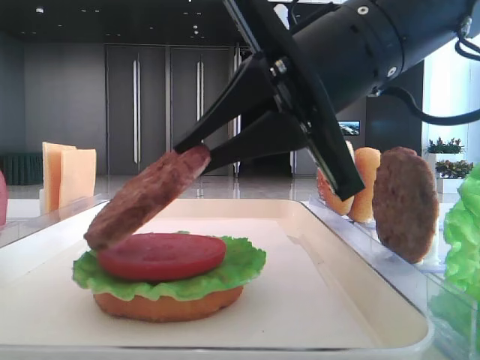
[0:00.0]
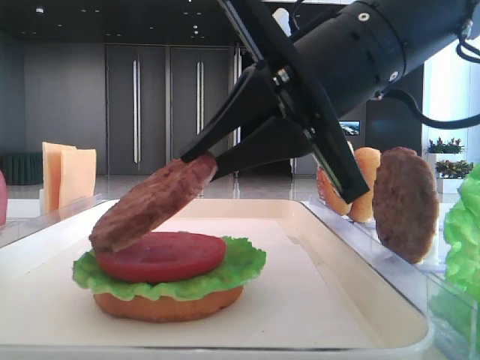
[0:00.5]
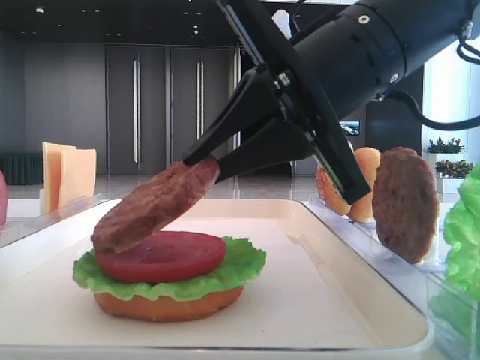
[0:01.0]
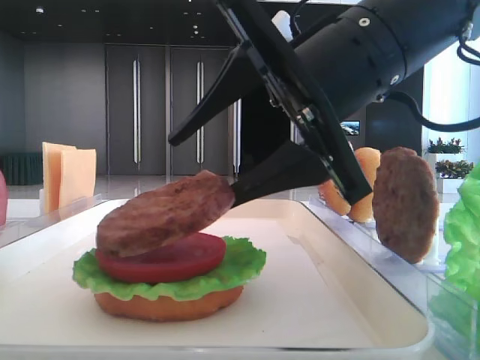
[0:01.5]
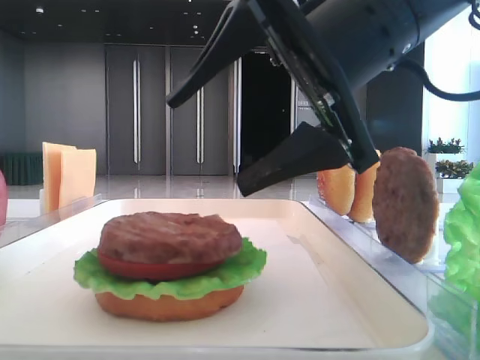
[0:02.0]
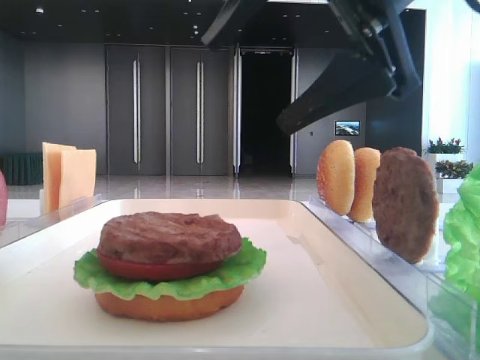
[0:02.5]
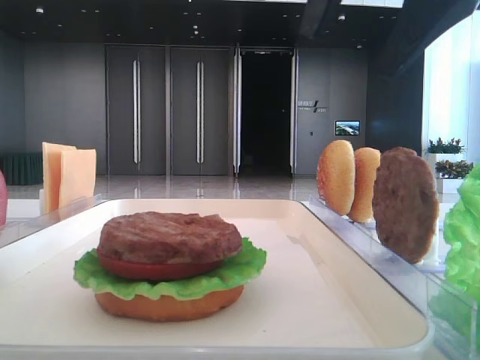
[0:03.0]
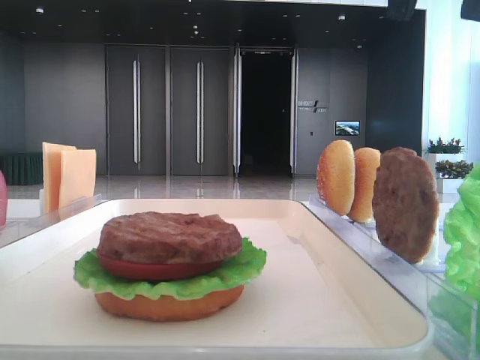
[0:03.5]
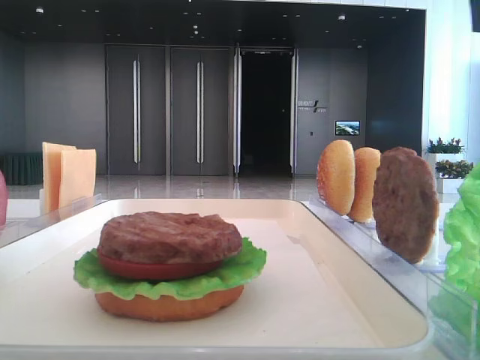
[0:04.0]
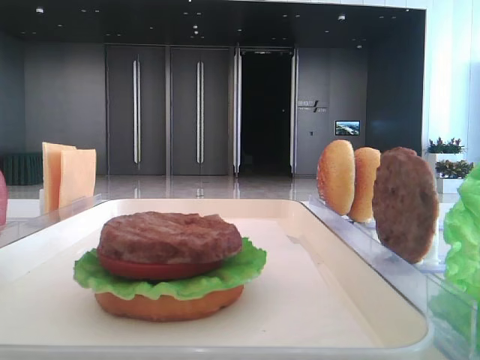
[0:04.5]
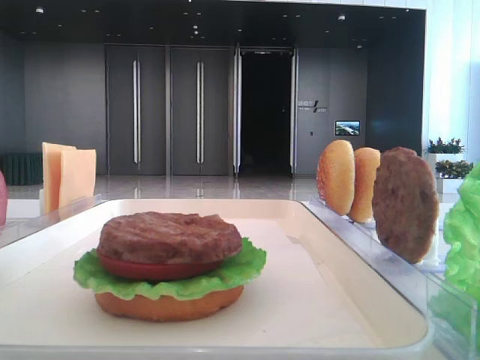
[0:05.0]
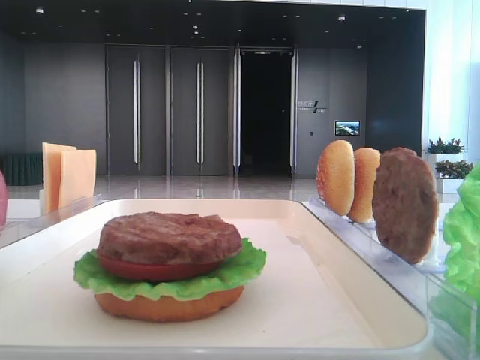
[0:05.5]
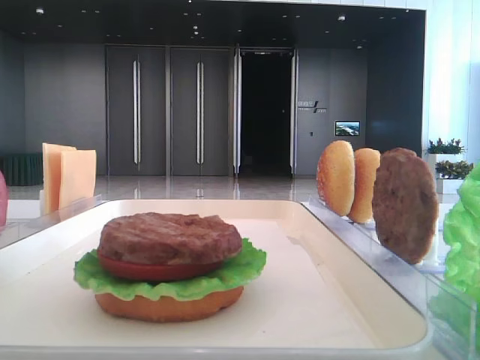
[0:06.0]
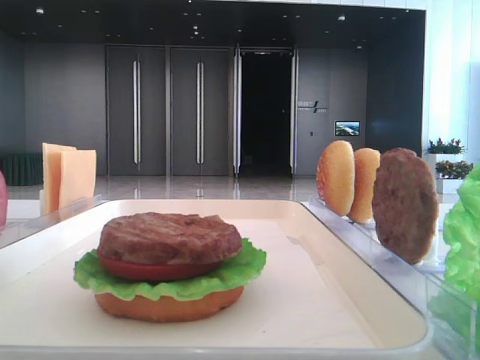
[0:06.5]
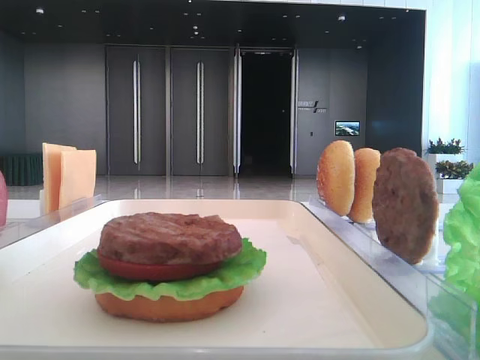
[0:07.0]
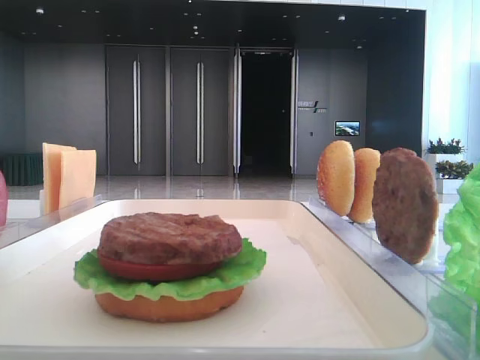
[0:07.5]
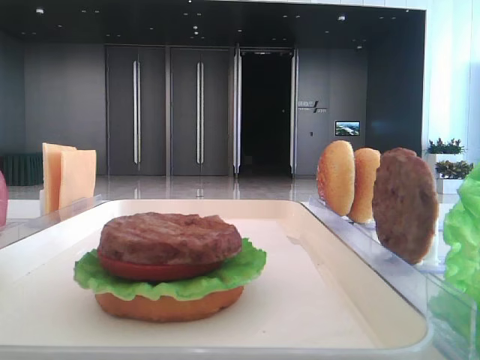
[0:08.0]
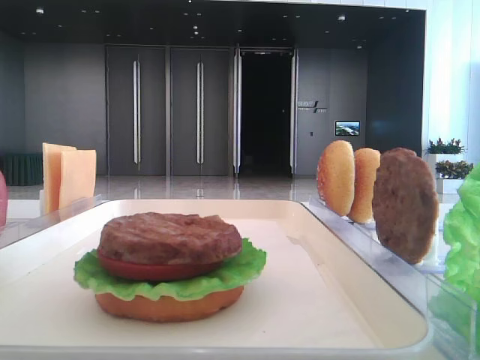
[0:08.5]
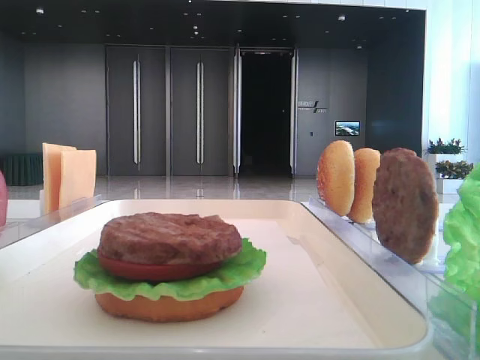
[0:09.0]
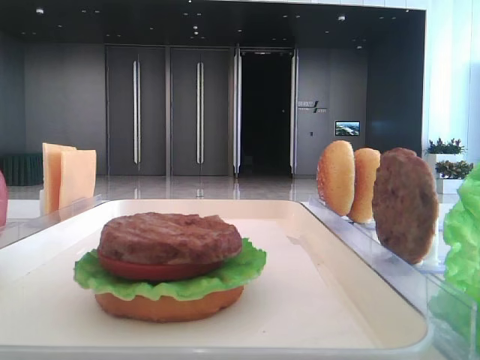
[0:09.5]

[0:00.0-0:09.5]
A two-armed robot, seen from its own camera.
Step, 0:00.0 to 0:02.0: Place the patty on the tomato slice with the right hand.
0:00.0 to 0:02.0: The right gripper opens.
0:02.0 to 0:04.0: The right gripper is displaced upward and to the right by about 20 cm.
0:07.5 to 0:09.5: Neither gripper changes place.

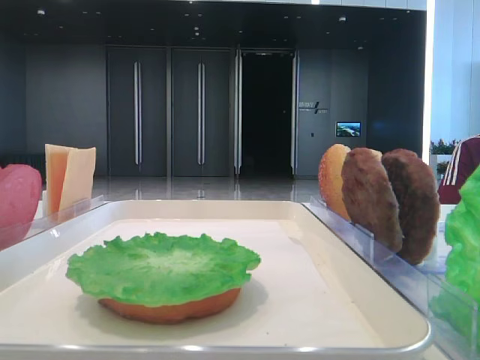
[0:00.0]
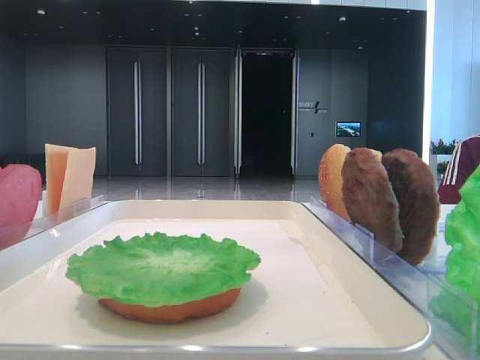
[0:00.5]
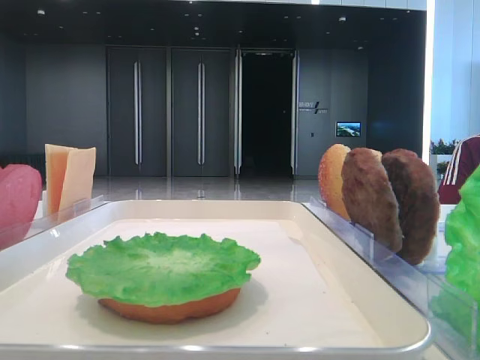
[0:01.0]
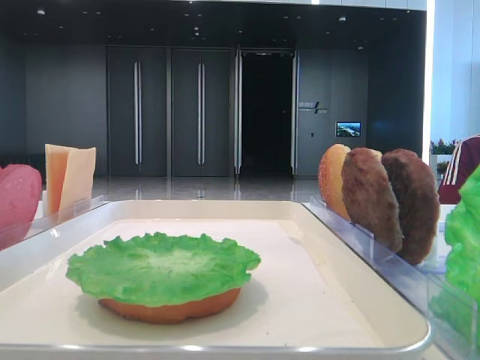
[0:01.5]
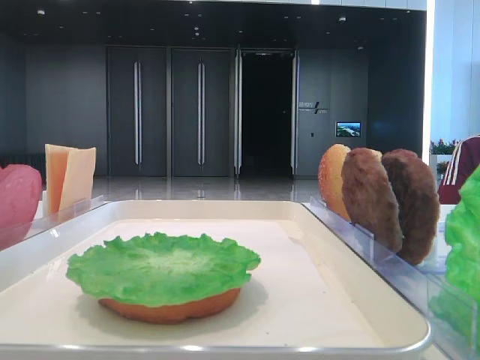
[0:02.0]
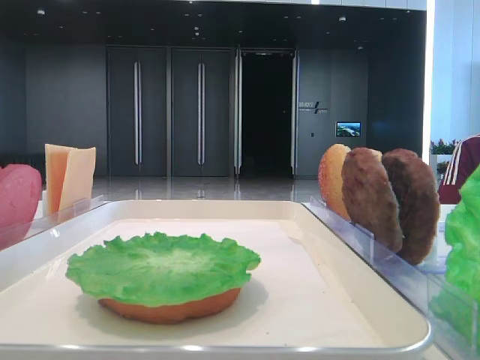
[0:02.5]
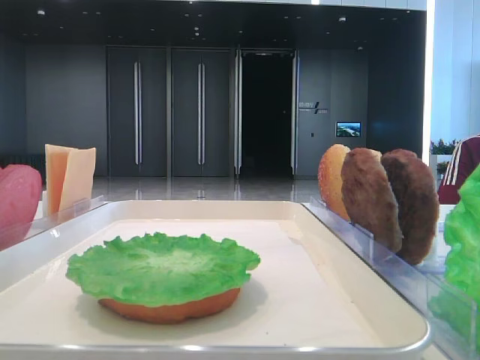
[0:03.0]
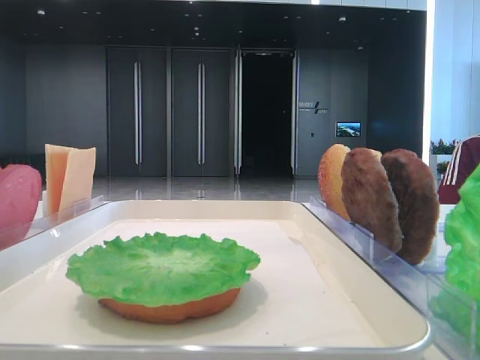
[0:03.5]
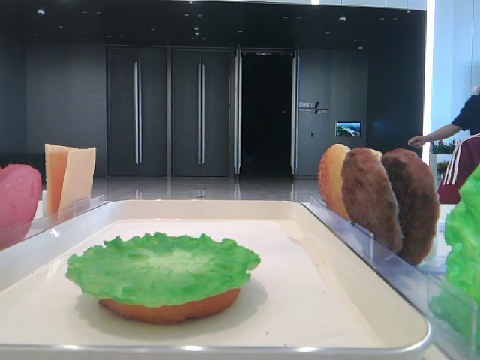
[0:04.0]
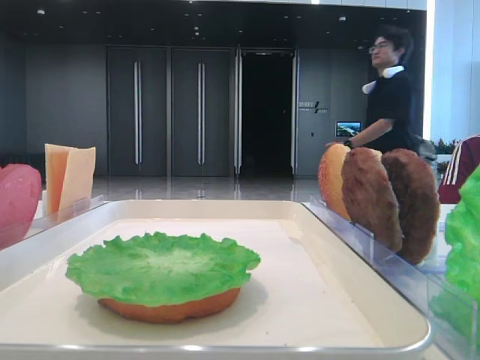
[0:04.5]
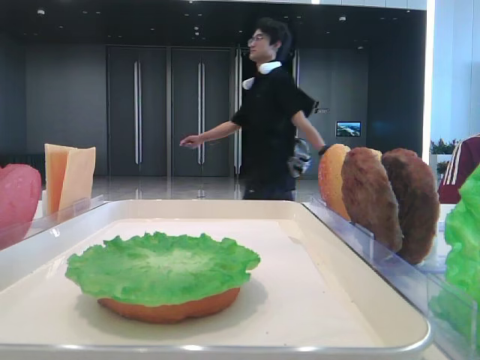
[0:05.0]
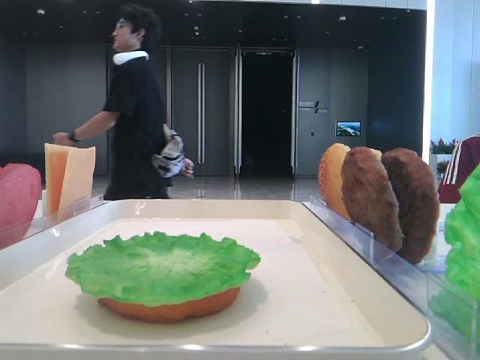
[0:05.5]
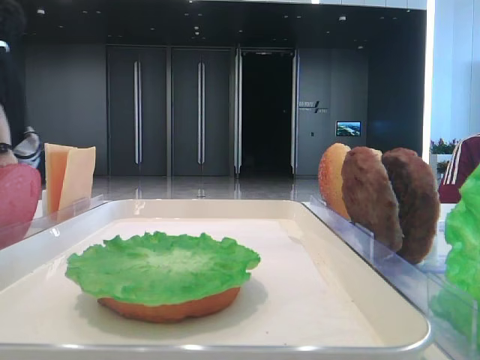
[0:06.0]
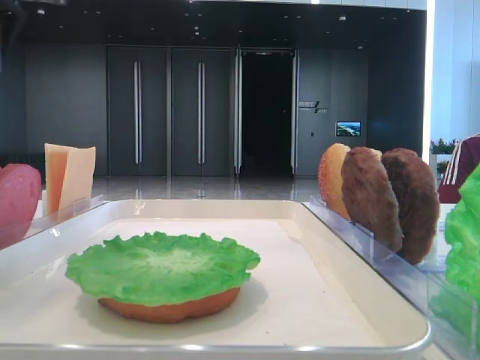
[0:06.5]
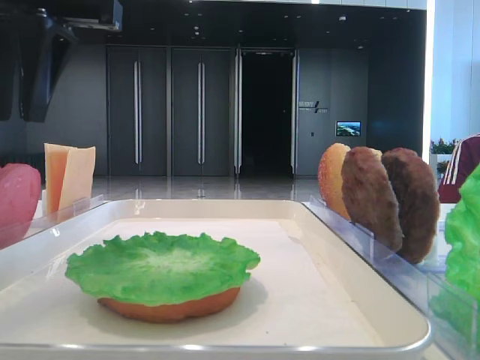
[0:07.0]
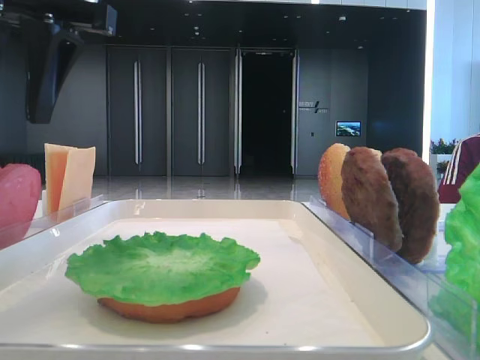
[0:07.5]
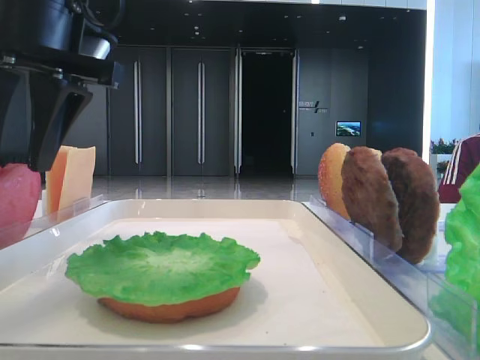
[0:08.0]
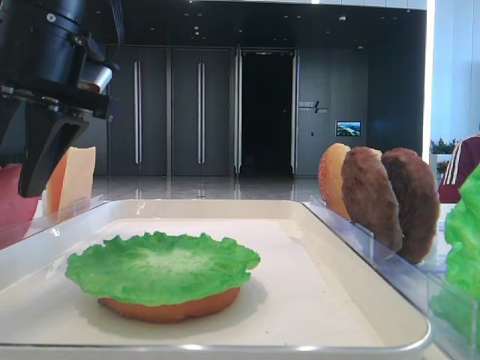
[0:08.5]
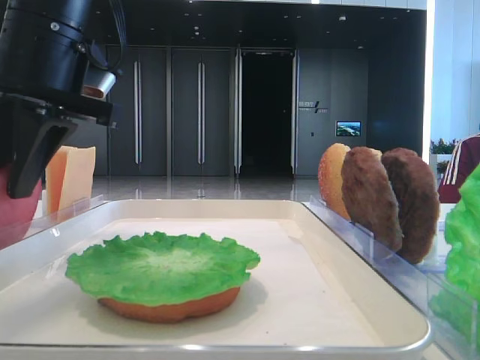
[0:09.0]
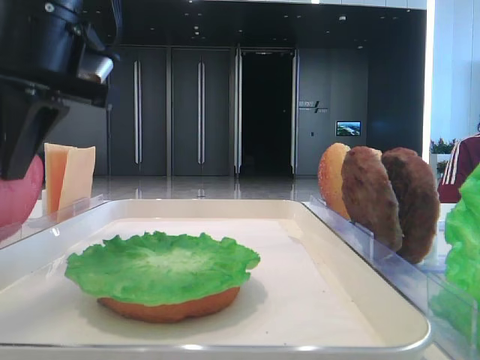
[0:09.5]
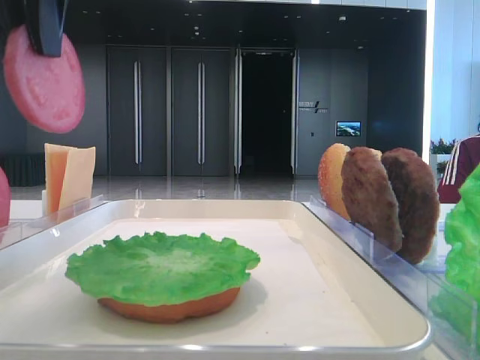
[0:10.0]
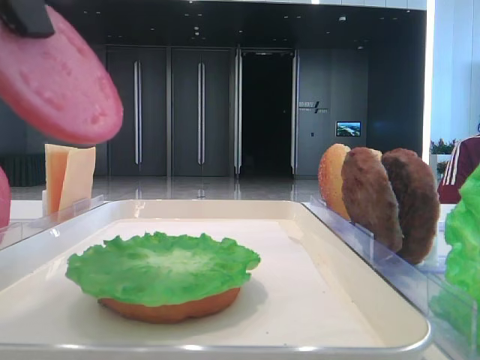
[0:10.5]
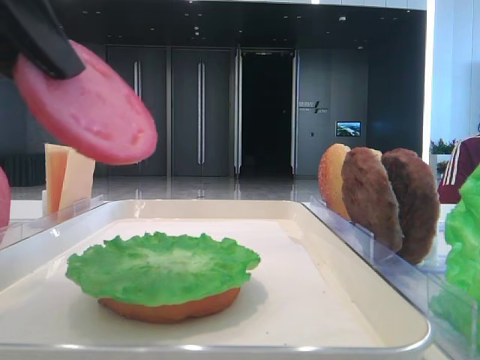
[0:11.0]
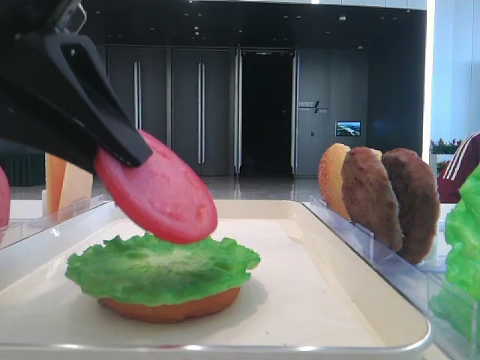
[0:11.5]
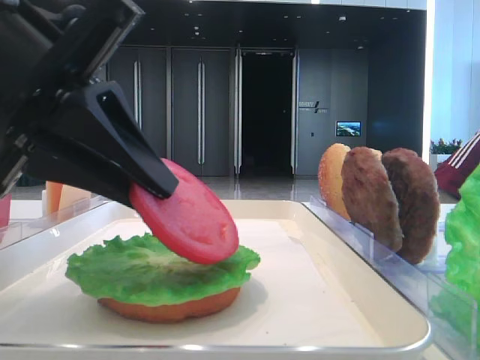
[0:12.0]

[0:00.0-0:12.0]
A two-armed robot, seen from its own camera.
Step, 0:00.0 to 0:09.0: Pick up the tomato slice with the left hand.
0:02.0 to 0:04.0: Both grippers stay about where they are.
0:04.0 to 0:06.0: The left gripper travels forward by some 30 cm.
0:06.0 to 0:08.0: The left gripper goes approximately 15 cm to the right and downward.
0:08.0 to 0:10.0: The left gripper is displaced upward by approximately 5 cm, and closes up.
0:10.0 to 0:12.0: The left gripper shifts some 15 cm downward.

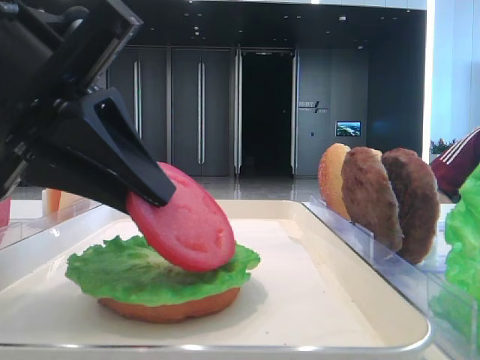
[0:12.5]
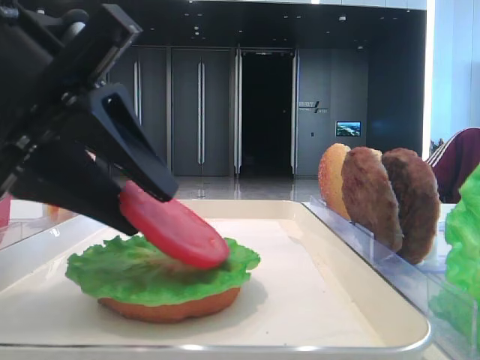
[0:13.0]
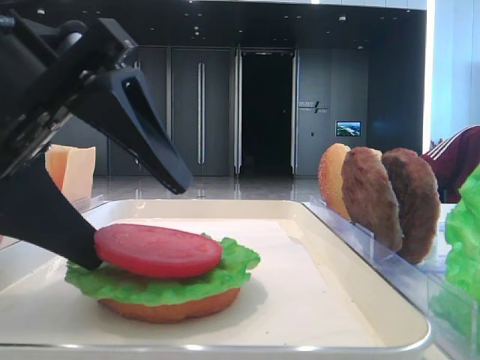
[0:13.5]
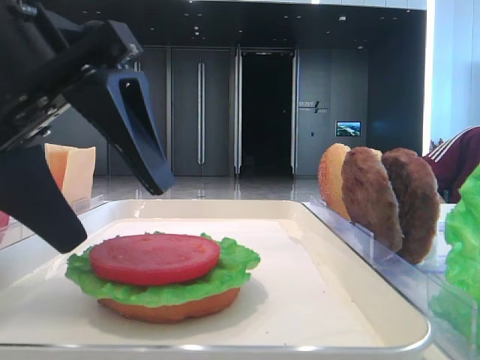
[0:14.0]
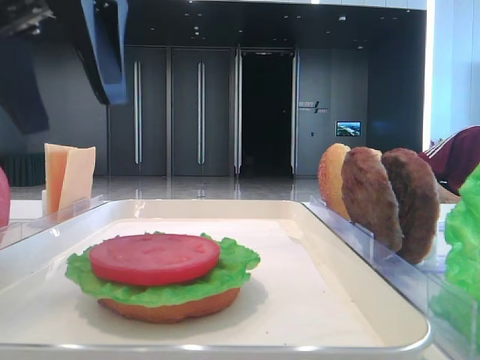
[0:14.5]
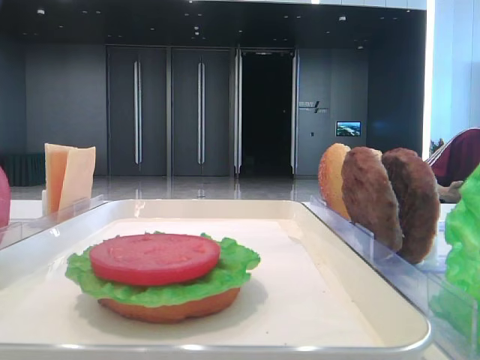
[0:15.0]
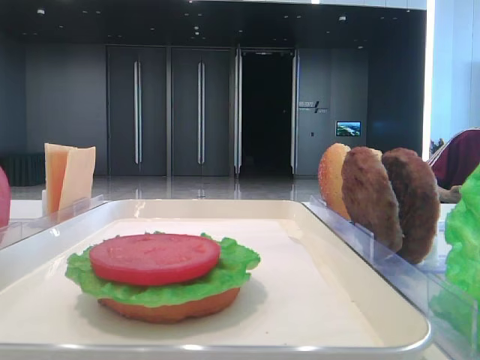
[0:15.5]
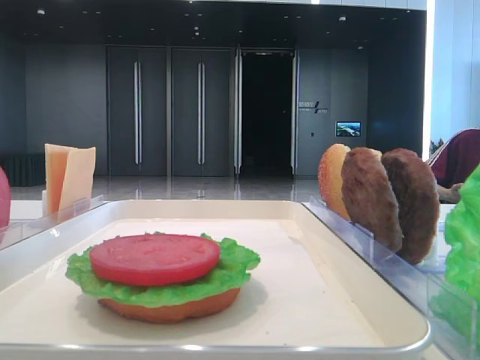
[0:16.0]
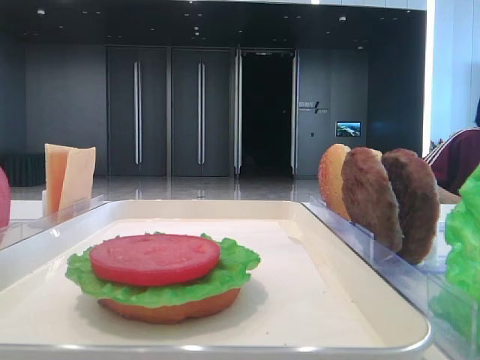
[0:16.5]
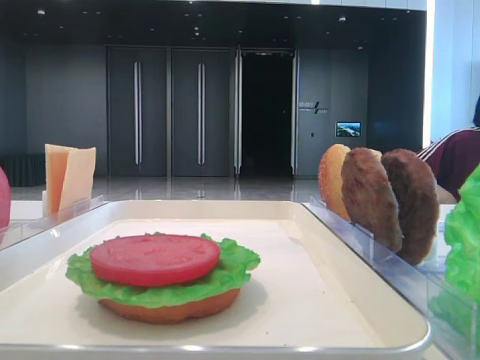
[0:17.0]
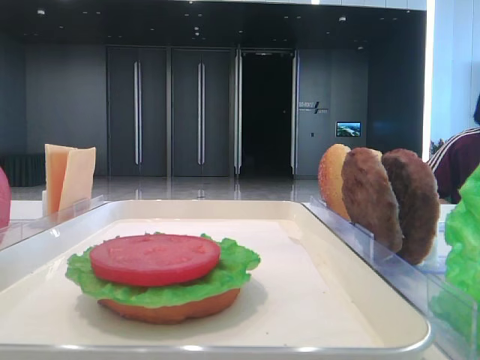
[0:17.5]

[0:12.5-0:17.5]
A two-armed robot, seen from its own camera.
0:12.5 to 0:15.0: The left gripper is displaced upward, to the left and forward by roughly 20 cm, and opens.
